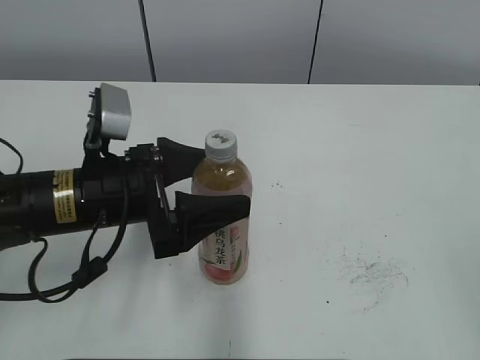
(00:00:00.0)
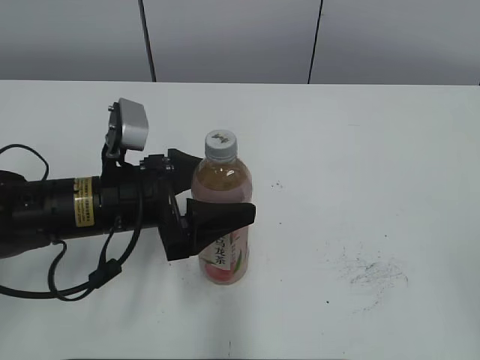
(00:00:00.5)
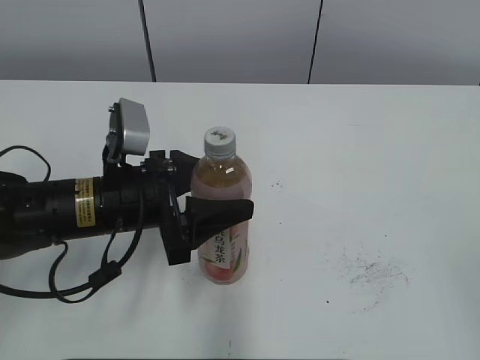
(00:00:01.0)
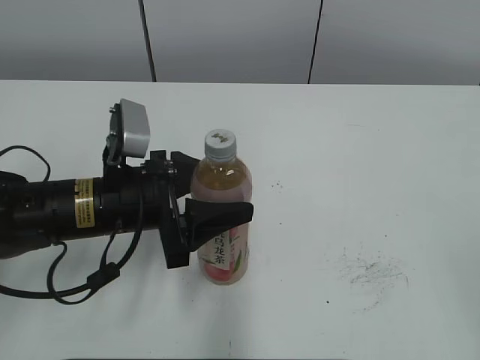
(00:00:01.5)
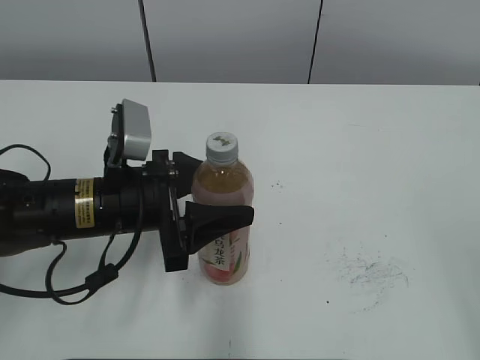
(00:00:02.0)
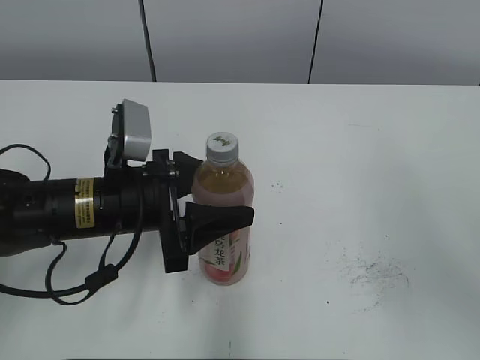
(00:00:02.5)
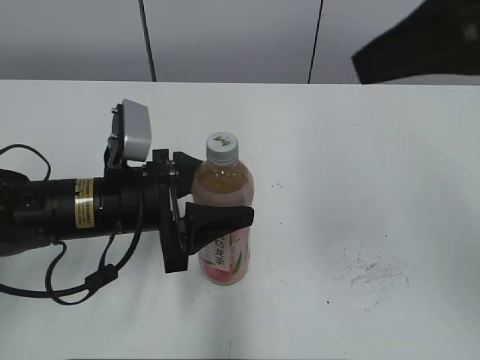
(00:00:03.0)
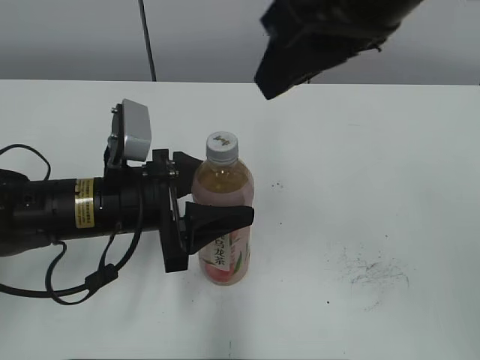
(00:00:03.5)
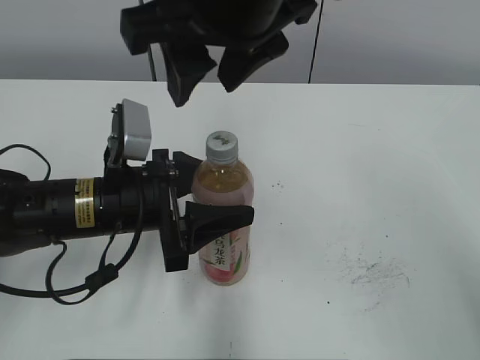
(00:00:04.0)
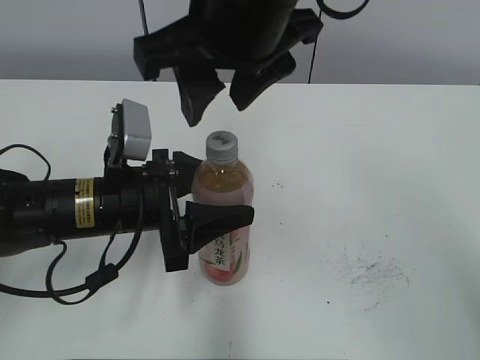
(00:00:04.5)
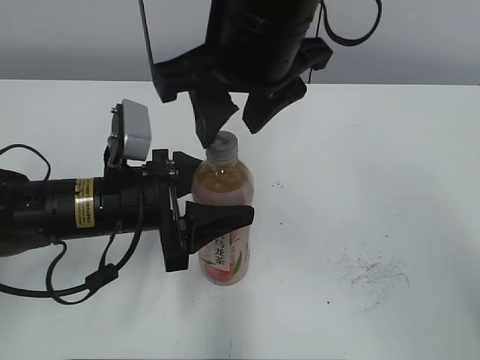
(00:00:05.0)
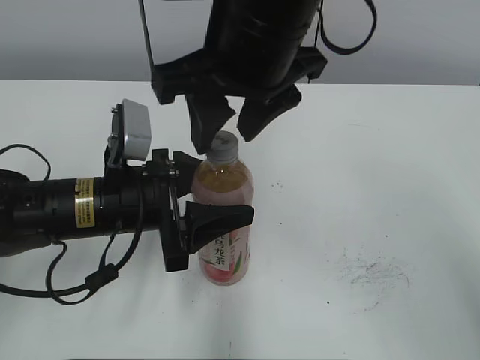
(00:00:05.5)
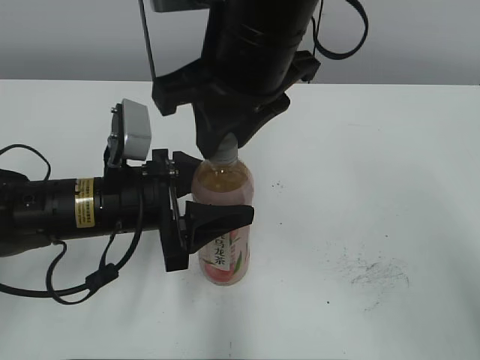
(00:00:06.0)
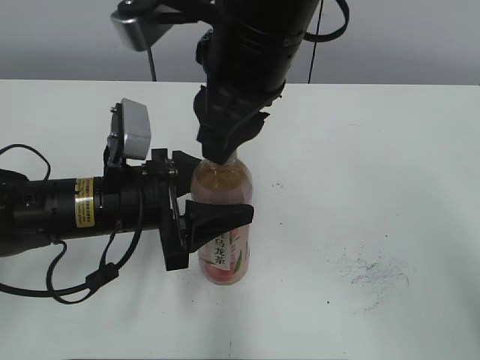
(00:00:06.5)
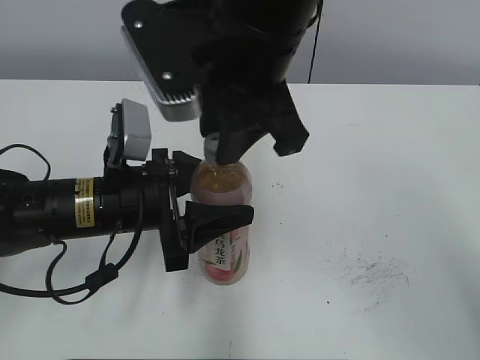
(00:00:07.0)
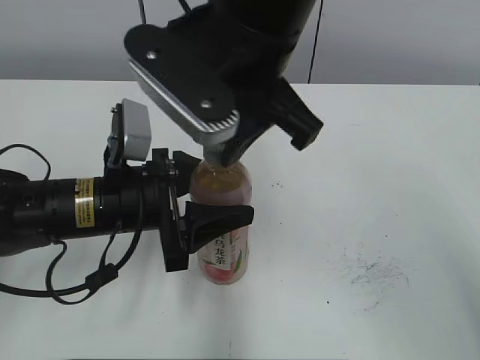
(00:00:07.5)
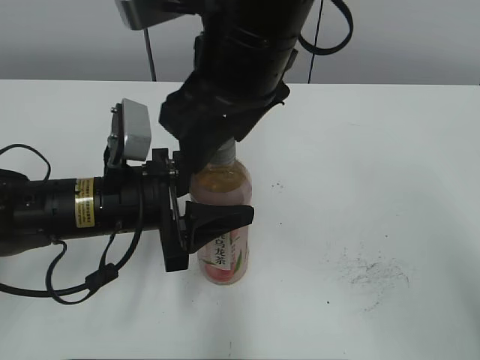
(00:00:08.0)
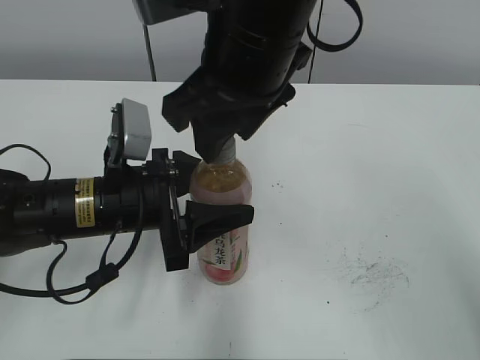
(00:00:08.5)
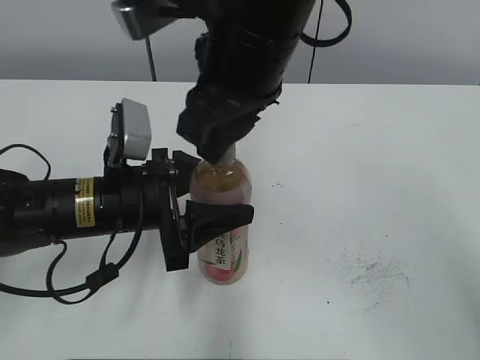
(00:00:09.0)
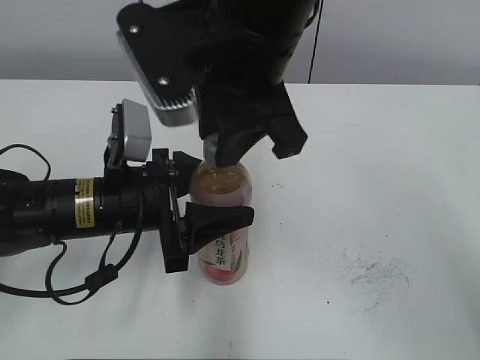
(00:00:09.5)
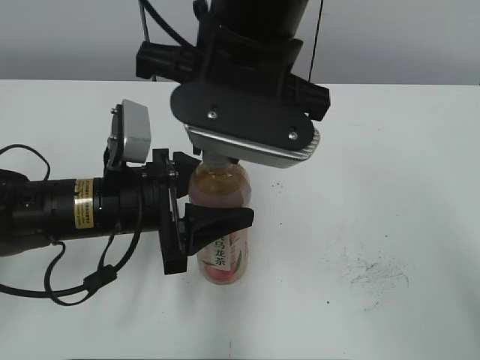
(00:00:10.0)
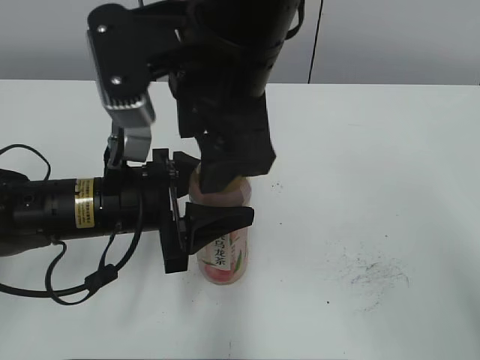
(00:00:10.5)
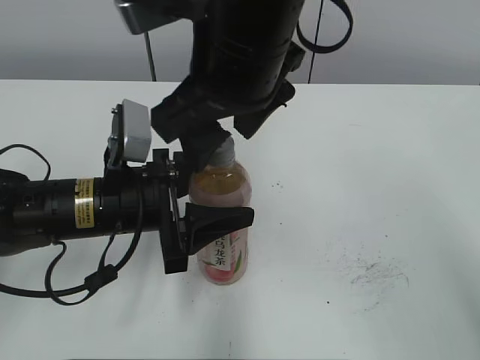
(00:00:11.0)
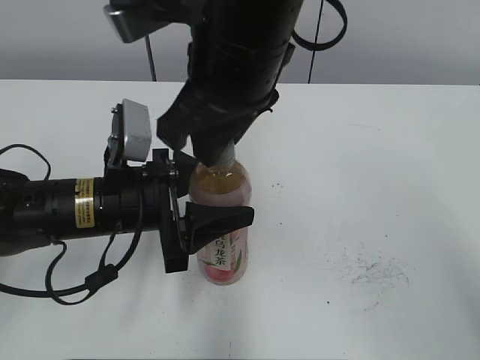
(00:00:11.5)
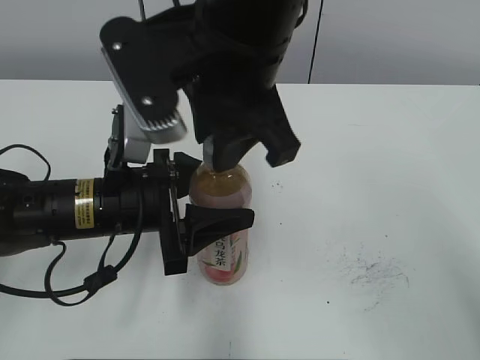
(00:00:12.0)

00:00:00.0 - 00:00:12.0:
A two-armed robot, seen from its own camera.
00:00:00.0 - 00:00:02.0: The left gripper closes its fingers.
00:00:02.0 - 00:00:04.0: The right gripper shifts roughly 40 cm to the left and forward, and closes, then reopens.
00:00:04.0 - 00:00:06.0: The right gripper closes up.
00:00:06.0 - 00:00:08.0: The right gripper opens.
00:00:08.0 - 00:00:10.0: The right gripper closes up.
00:00:10.0 - 00:00:12.0: The right gripper opens and closes again.

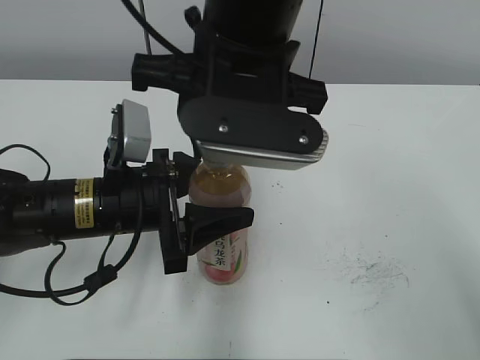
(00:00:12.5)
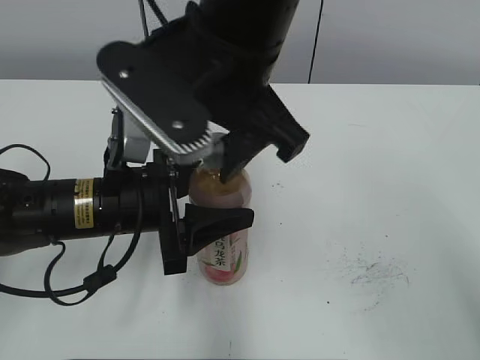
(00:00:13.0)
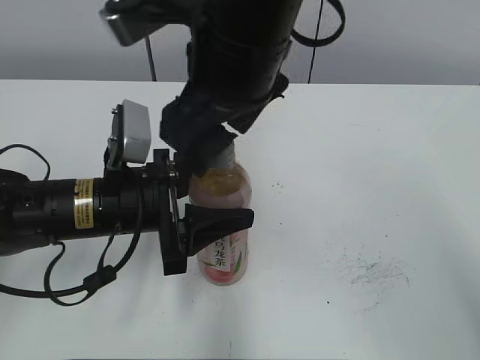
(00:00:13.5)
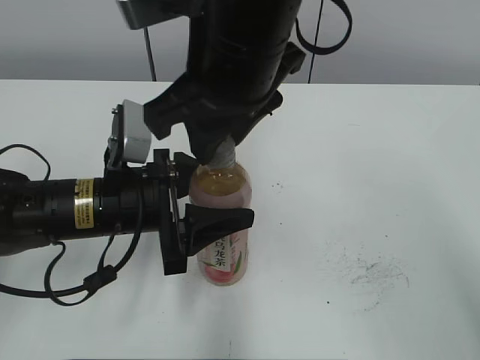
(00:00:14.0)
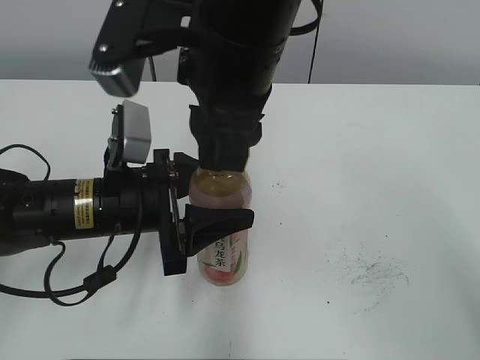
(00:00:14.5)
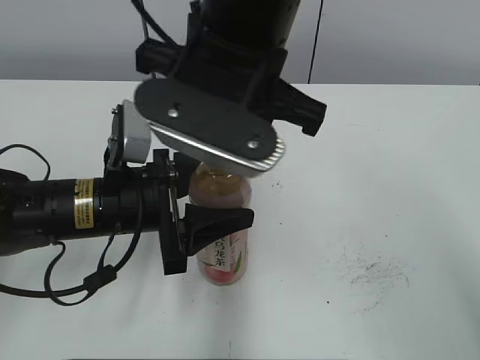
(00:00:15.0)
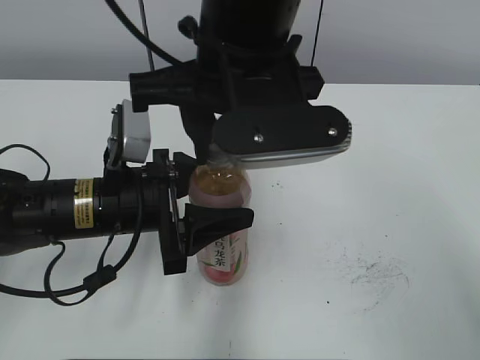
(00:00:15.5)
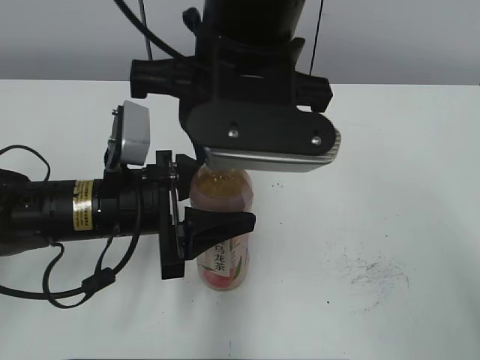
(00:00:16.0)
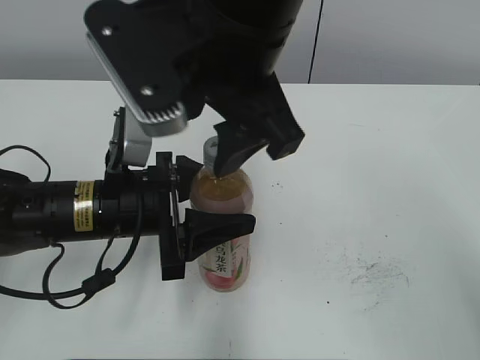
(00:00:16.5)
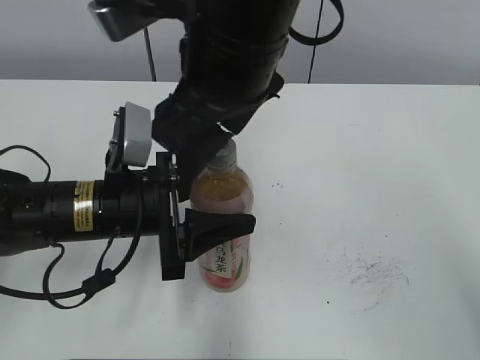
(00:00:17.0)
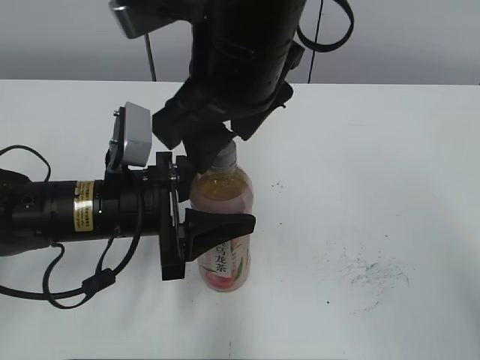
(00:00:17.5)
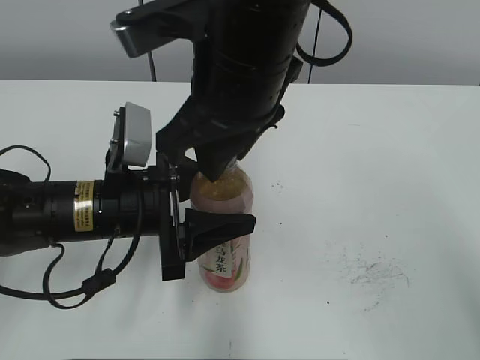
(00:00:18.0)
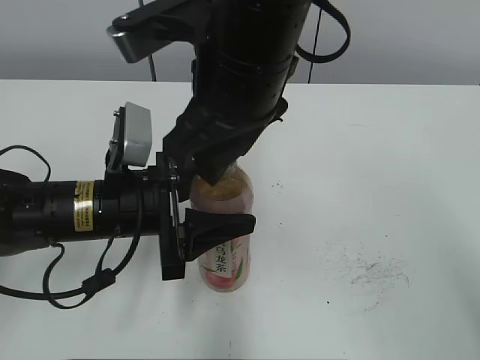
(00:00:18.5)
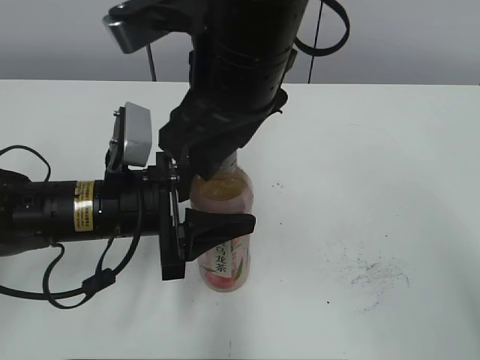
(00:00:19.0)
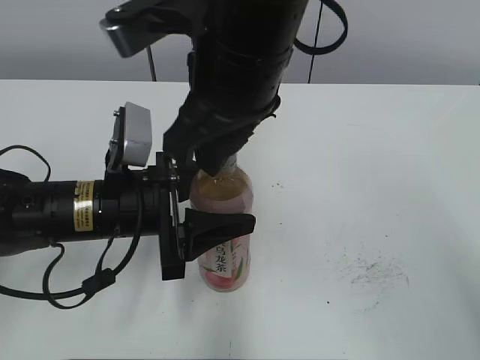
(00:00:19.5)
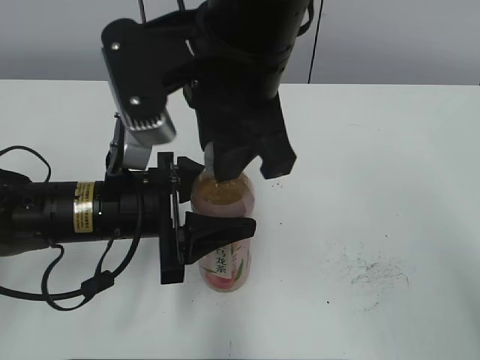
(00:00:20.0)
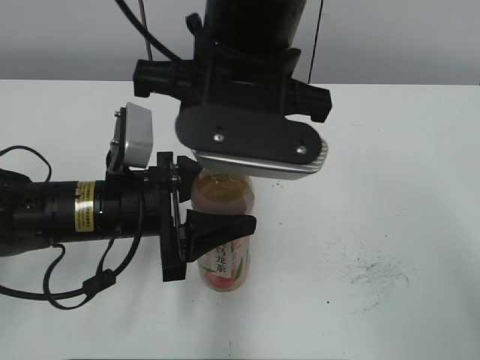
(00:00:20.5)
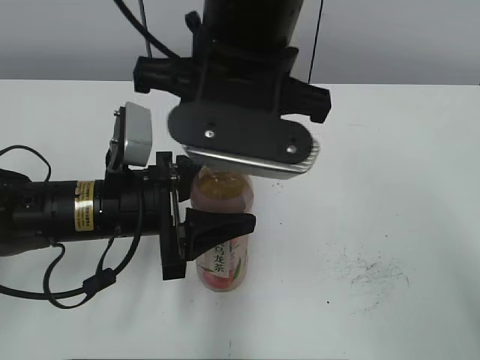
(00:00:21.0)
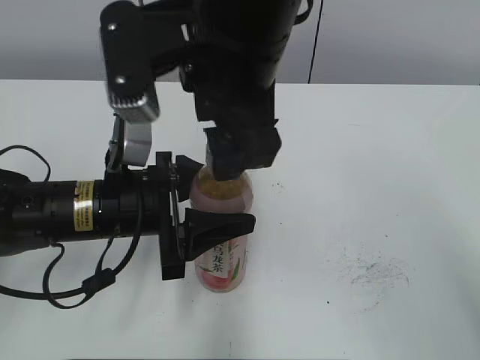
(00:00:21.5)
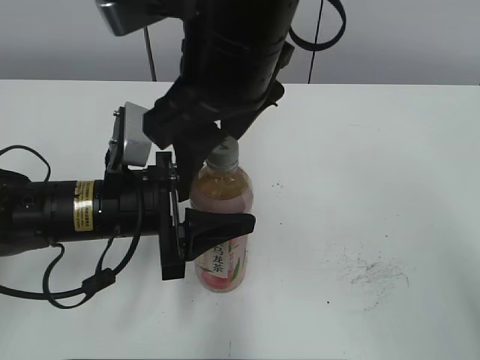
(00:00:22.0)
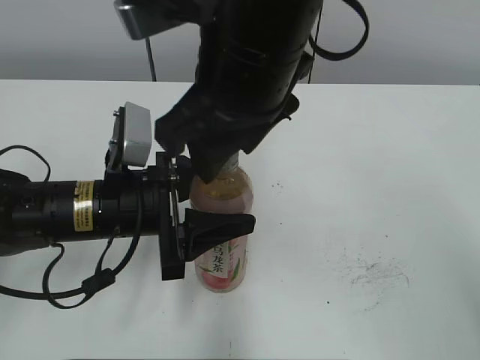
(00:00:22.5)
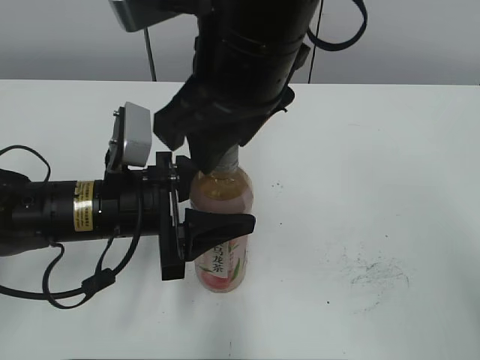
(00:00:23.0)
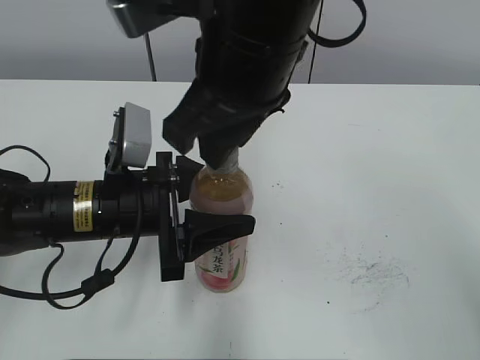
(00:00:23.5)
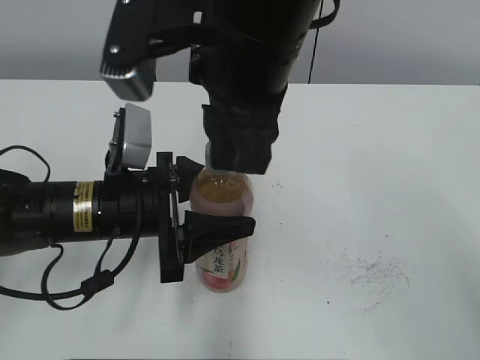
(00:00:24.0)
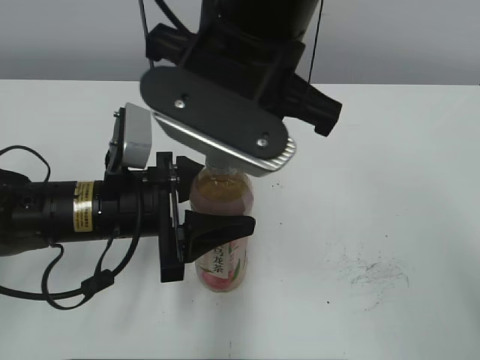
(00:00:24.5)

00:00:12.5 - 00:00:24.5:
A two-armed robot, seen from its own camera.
00:00:12.5 - 00:00:14.5: The right gripper opens, then closes once more.
00:00:14.5 - 00:00:16.5: The right gripper opens.
00:00:16.5 - 00:00:18.5: The right gripper closes.
00:00:20.5 - 00:00:22.5: The right gripper opens.
00:00:22.5 - 00:00:24.5: The right gripper closes its fingers.

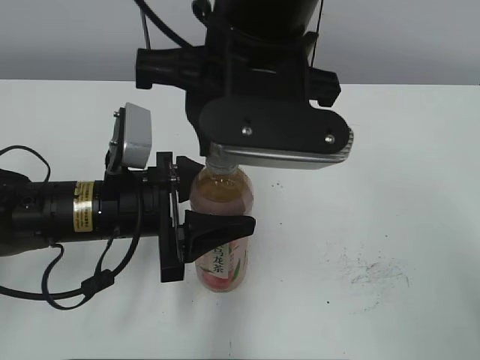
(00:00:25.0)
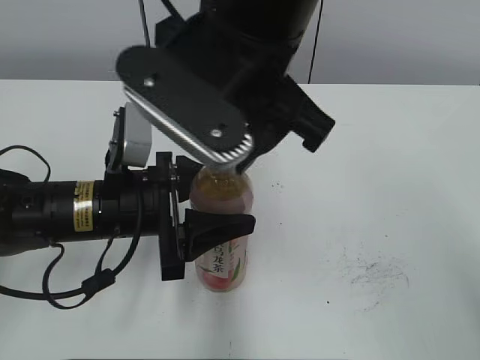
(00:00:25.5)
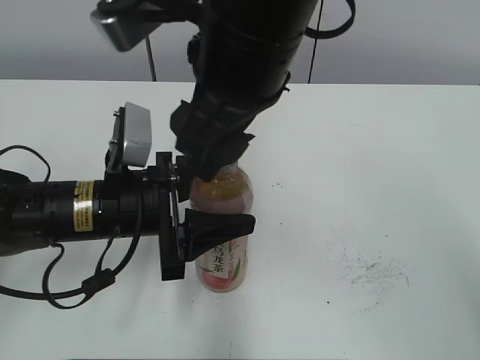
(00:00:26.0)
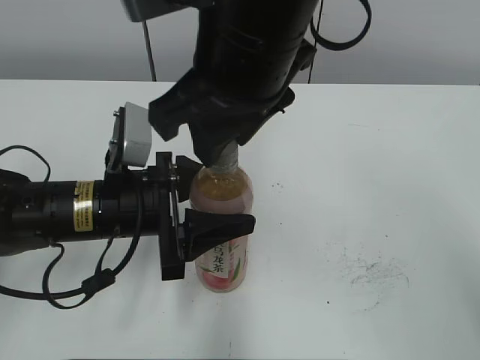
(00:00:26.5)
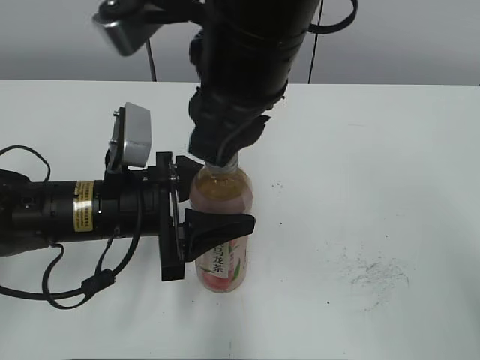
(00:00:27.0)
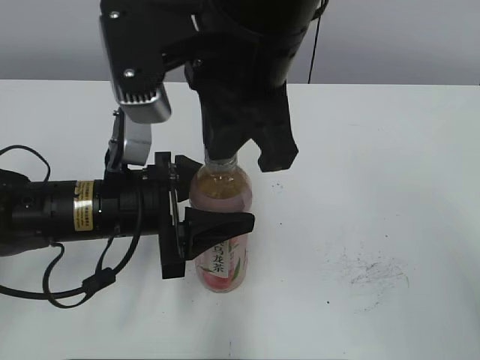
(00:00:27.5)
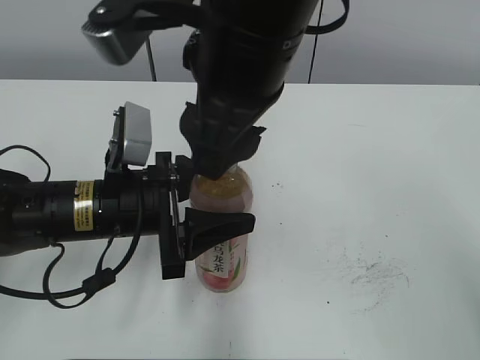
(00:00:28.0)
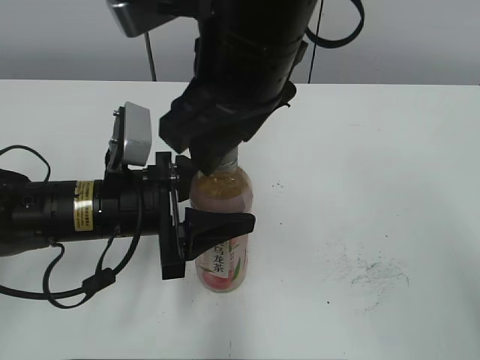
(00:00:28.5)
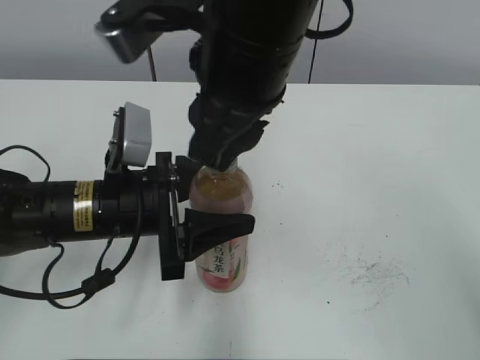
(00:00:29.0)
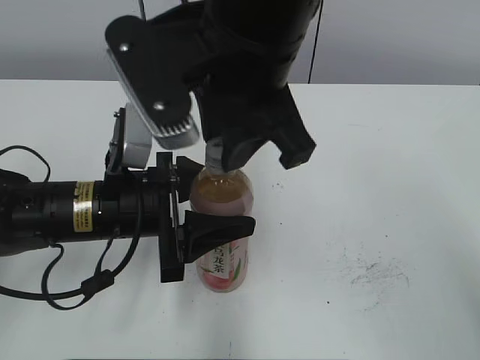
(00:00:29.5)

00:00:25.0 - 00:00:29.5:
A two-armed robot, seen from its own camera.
00:00:25.0 - 00:00:27.0: The right gripper opens, then closes again.
00:00:27.0 - 00:00:29.5: The right gripper opens, then closes once more.
